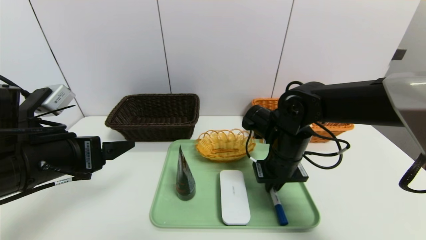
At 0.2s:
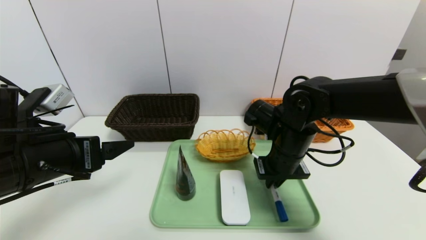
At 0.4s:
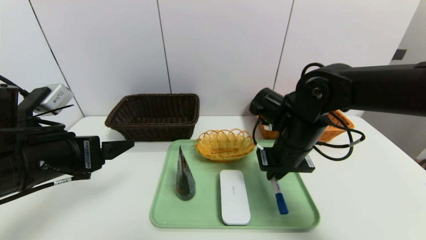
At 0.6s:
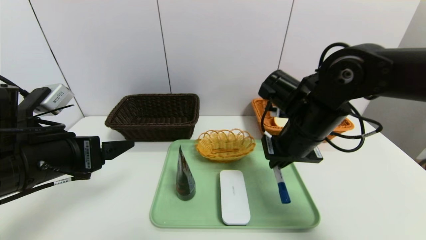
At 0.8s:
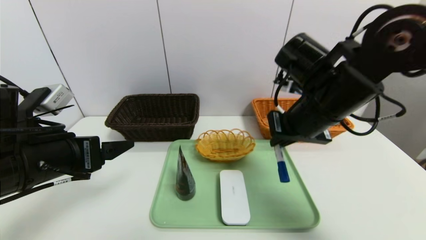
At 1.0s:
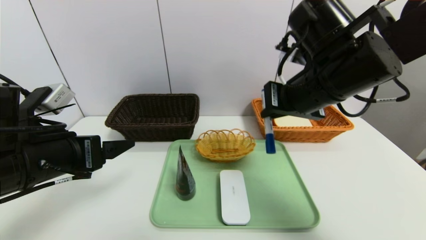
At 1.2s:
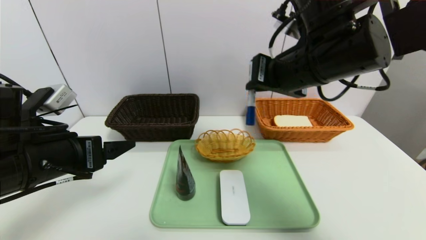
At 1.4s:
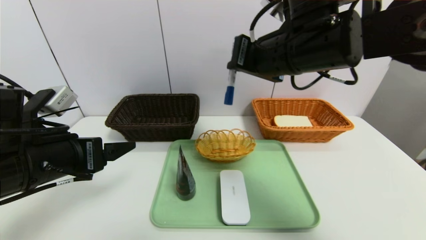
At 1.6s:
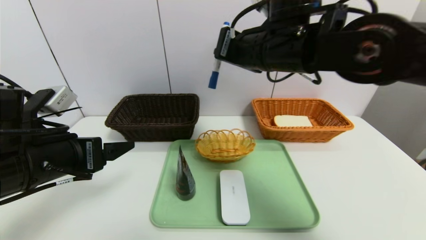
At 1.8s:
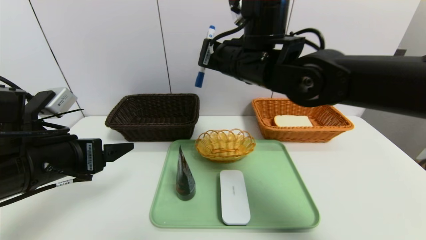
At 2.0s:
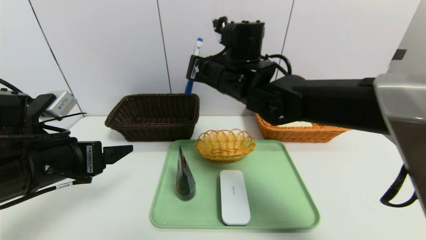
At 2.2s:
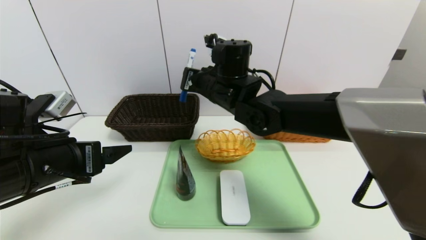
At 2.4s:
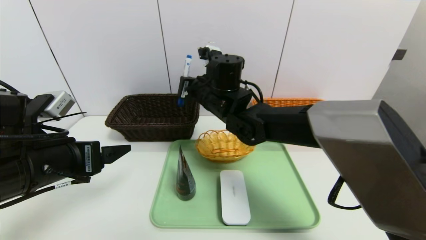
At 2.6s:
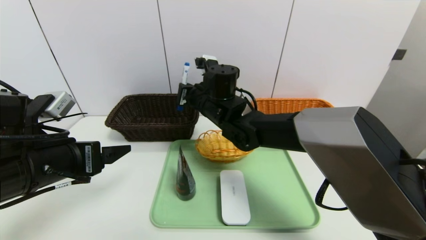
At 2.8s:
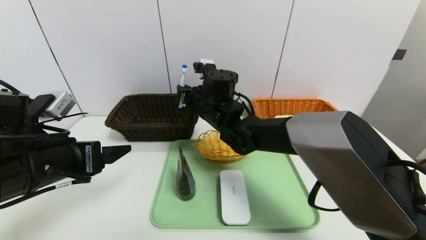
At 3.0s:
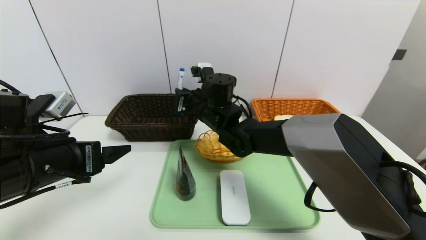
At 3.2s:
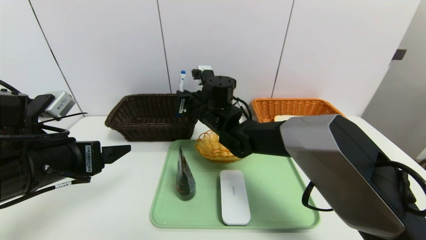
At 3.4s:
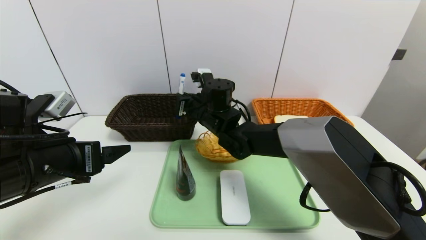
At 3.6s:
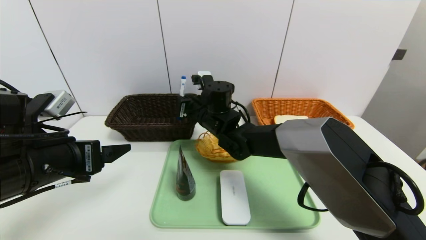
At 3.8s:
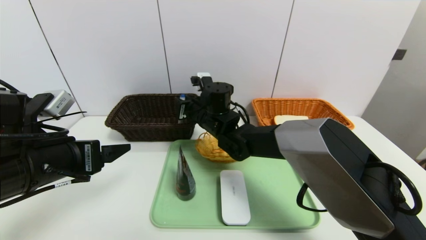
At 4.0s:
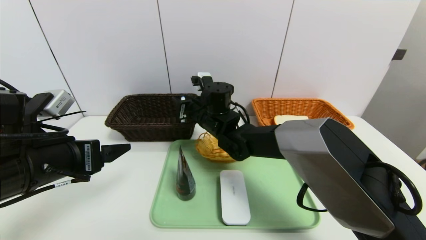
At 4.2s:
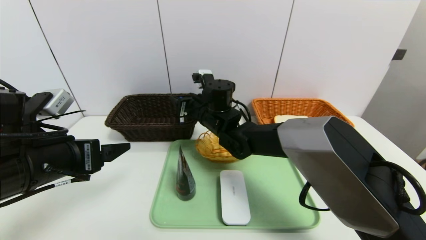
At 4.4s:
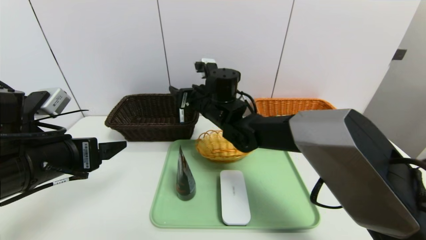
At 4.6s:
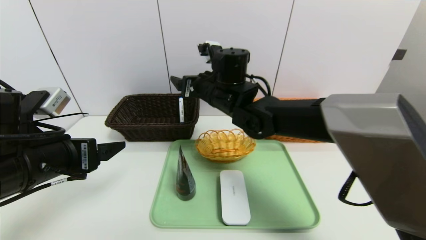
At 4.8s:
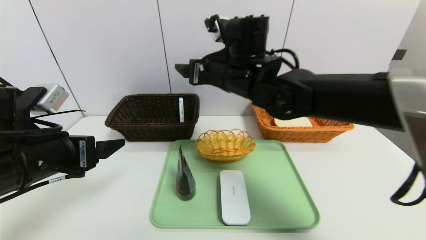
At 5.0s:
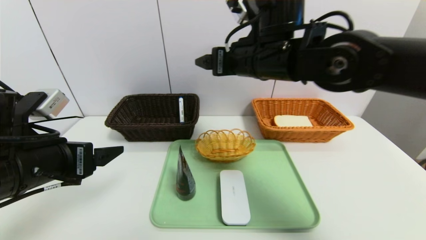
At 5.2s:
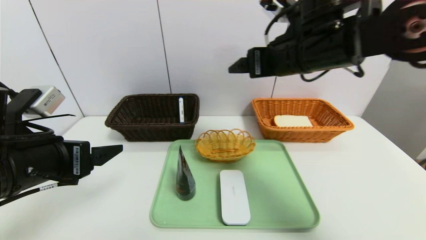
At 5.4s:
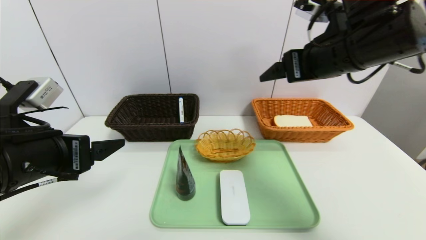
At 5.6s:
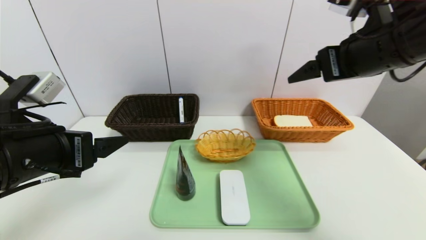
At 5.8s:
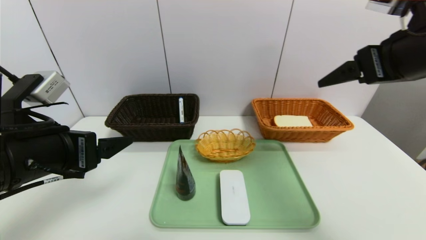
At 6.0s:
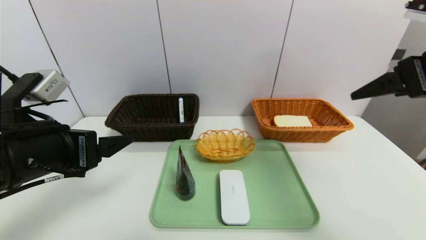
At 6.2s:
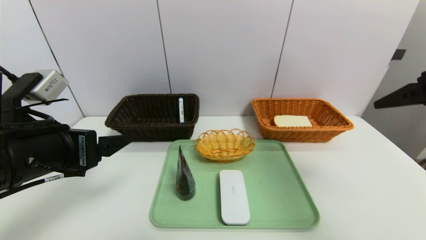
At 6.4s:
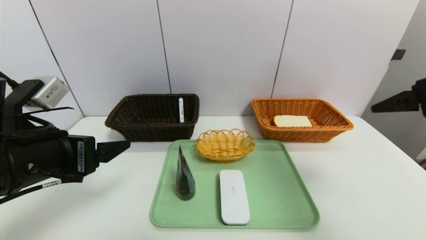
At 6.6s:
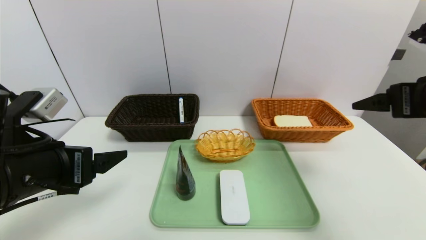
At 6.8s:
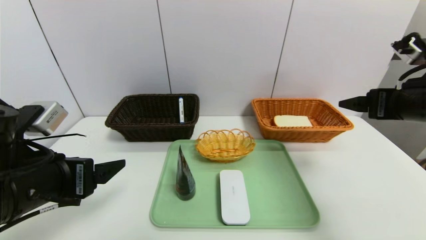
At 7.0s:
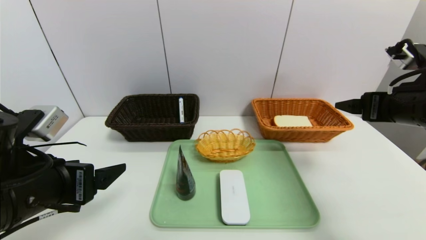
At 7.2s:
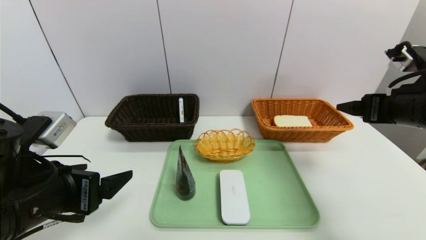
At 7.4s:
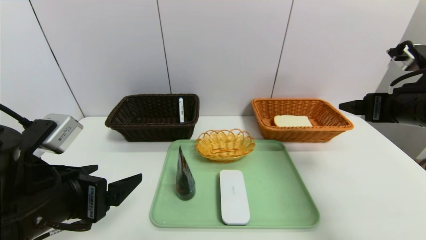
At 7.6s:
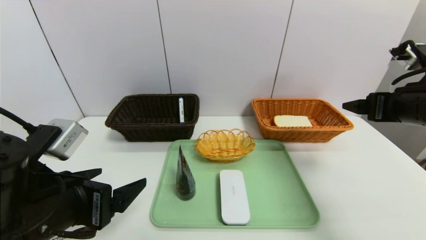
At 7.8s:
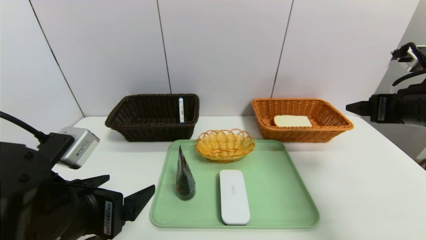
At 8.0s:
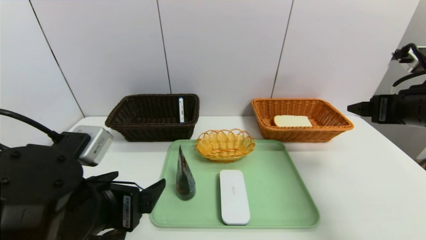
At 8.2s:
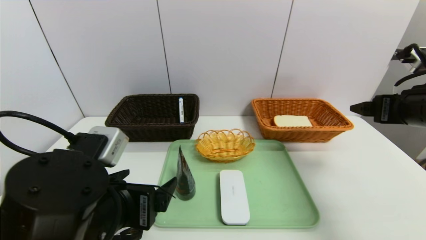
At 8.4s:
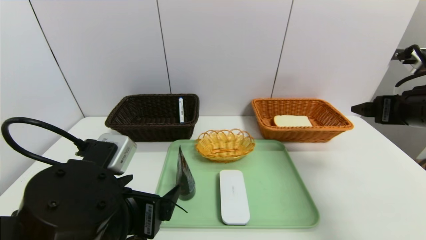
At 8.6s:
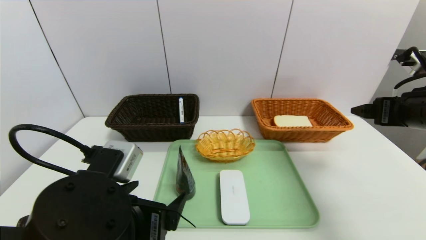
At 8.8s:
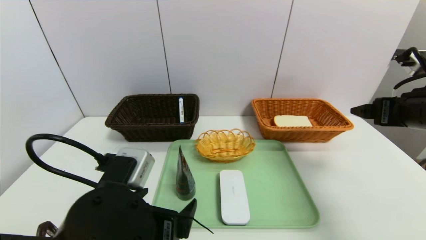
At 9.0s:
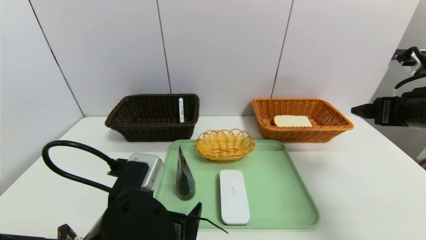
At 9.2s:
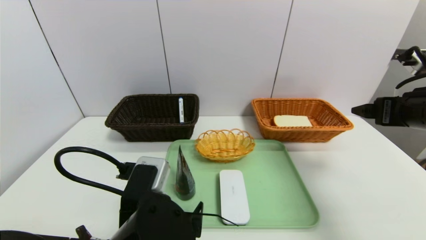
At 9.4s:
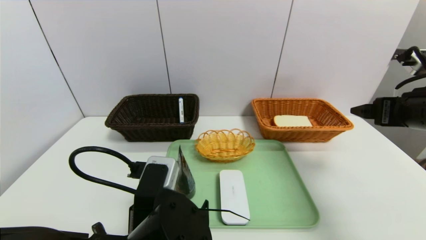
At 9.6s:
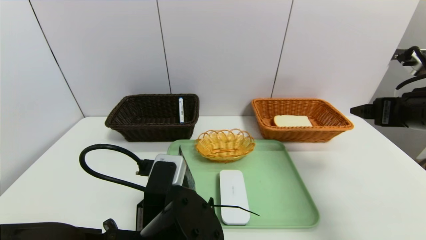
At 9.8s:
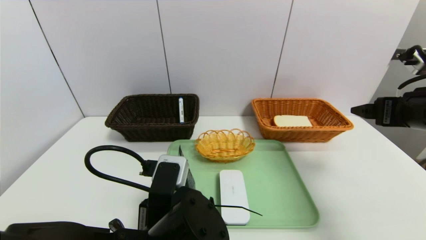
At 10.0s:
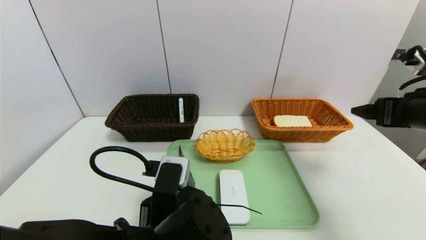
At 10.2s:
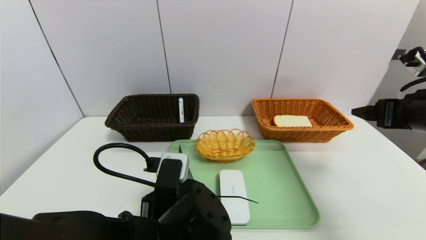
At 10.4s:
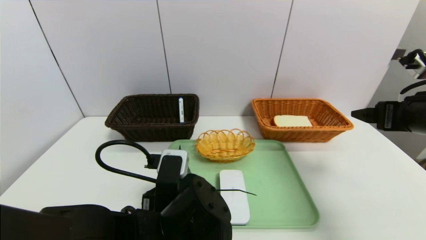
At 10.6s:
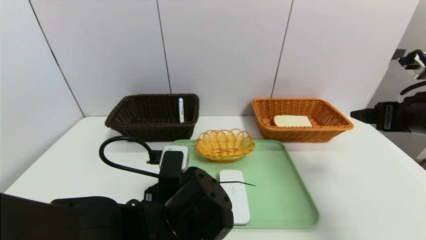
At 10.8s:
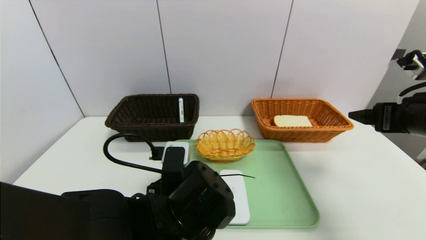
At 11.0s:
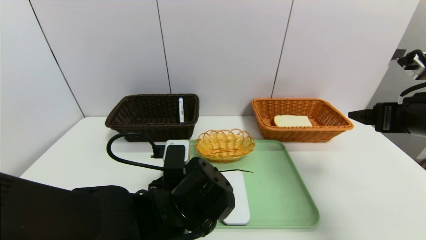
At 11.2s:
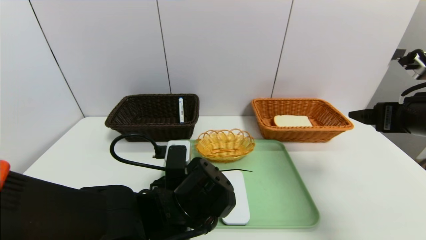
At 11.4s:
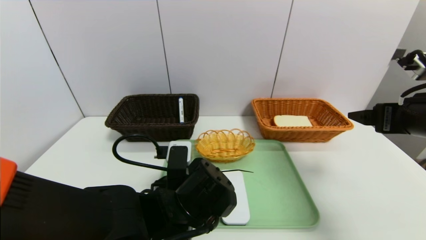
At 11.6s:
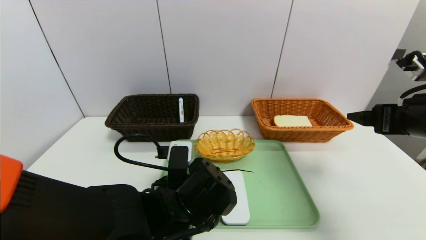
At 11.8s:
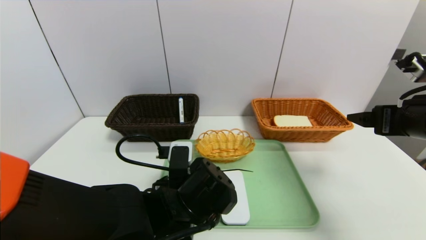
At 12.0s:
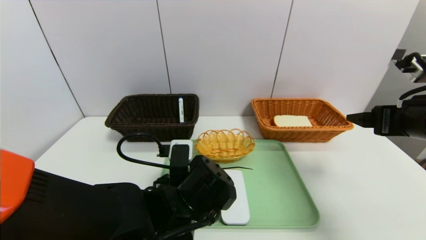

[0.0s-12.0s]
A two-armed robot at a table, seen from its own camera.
Task of the whole recording: place the food in the right basket with the right gripper, and place the non food items in the left basket with the left gripper.
0.0s to 1.6s: The right gripper heads upward, covering approximately 20 cm.
1.6s to 3.0s: The right gripper shifts approximately 20 cm downward, to the left and forward.
3.0s to 4.4s: The right gripper opens its fingers.
4.4s to 6.0s: The right gripper heads to the right, backward and upward, covering about 40 cm.
6.0s to 7.6s: The left gripper changes place by roughly 5 cm; the right gripper shifts approximately 10 cm downward.
7.6s to 9.0s: The left gripper moves to the right, roughly 10 cm.
9.0s to 10.4s: The left gripper changes place by some 5 cm.
10.4s to 12.0s: There are only small adjustments of the grippers.

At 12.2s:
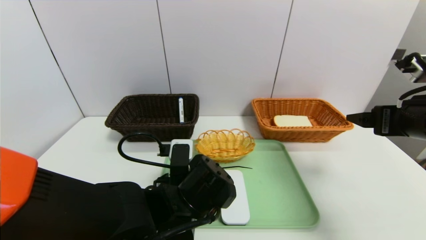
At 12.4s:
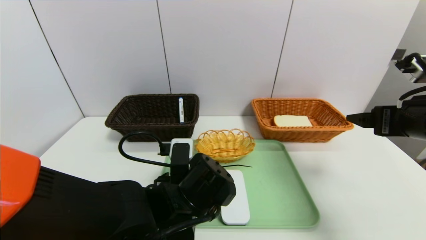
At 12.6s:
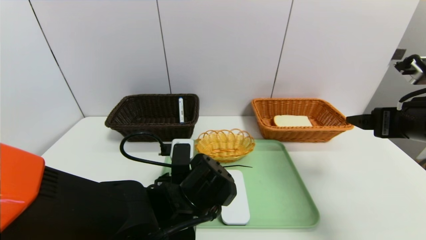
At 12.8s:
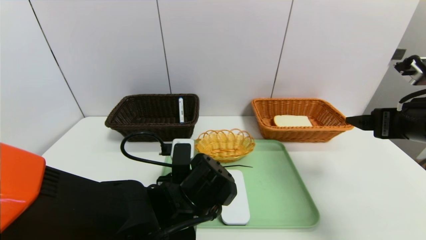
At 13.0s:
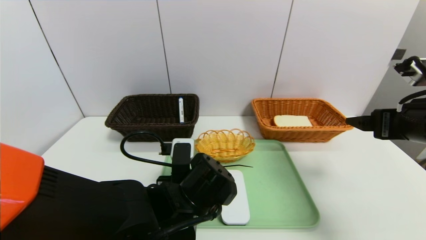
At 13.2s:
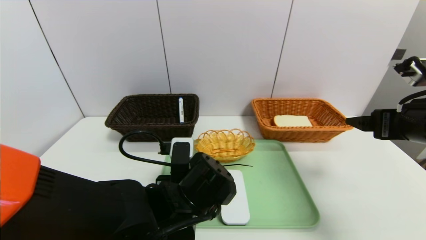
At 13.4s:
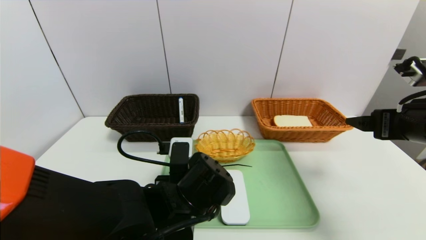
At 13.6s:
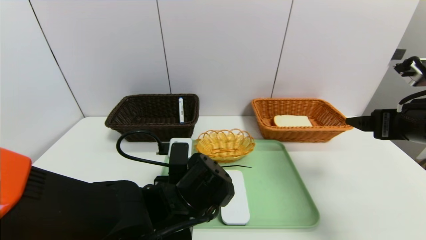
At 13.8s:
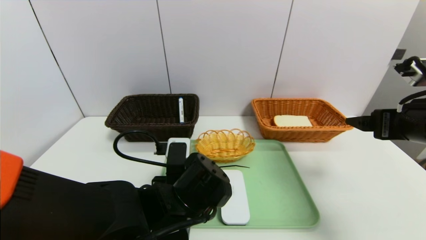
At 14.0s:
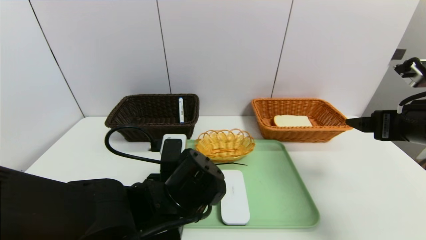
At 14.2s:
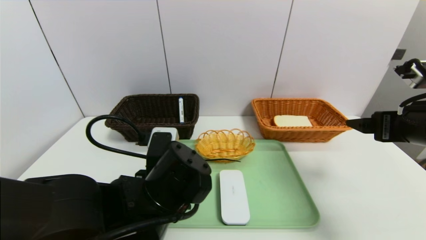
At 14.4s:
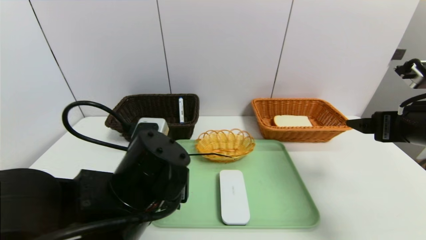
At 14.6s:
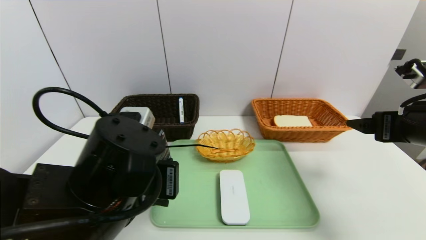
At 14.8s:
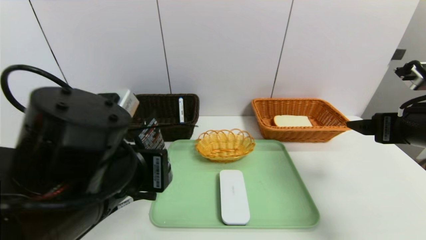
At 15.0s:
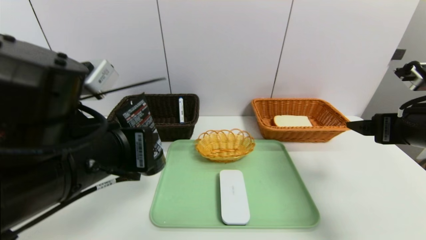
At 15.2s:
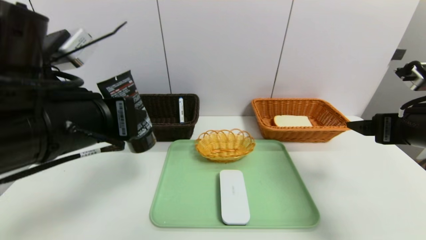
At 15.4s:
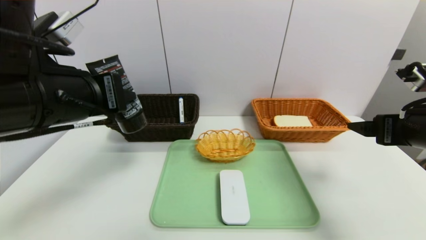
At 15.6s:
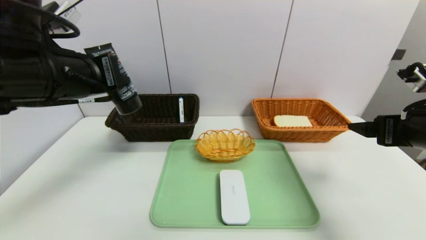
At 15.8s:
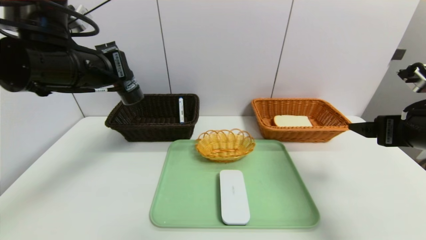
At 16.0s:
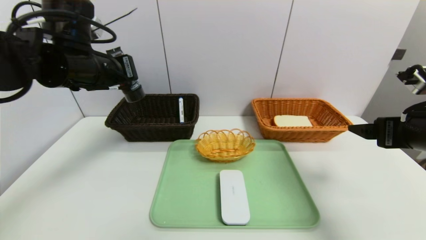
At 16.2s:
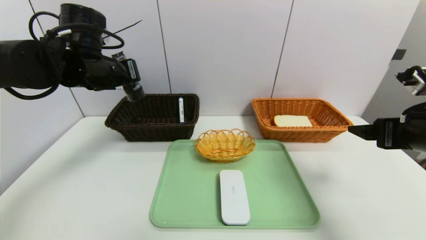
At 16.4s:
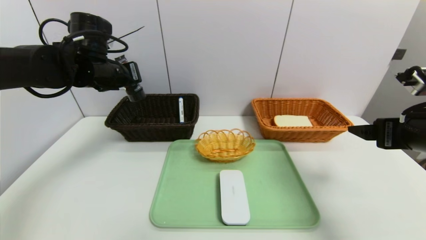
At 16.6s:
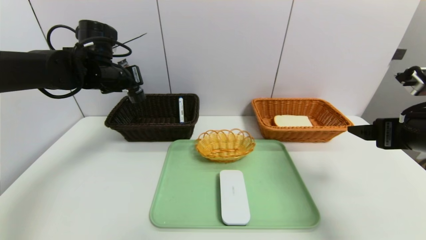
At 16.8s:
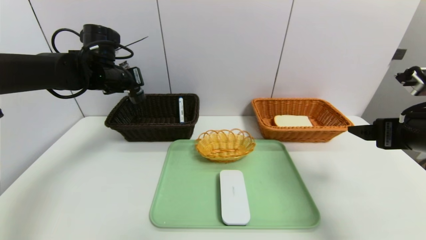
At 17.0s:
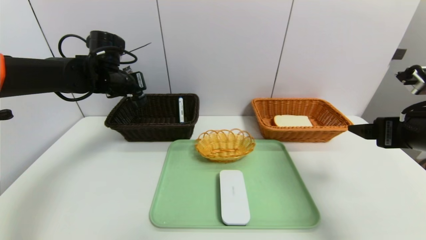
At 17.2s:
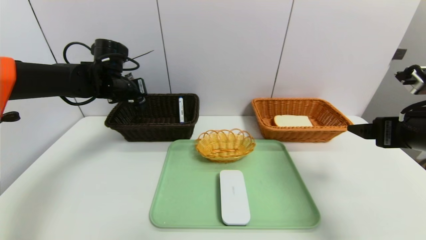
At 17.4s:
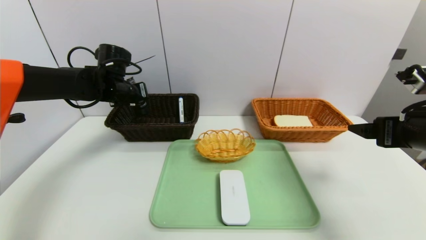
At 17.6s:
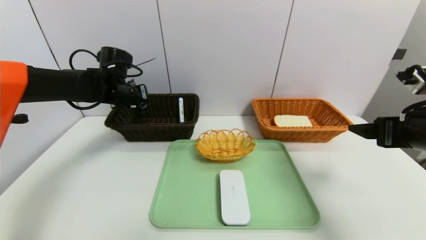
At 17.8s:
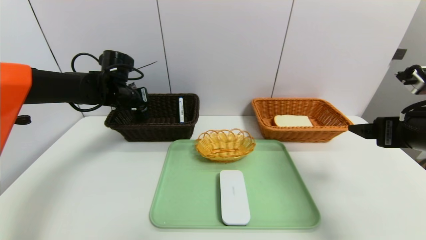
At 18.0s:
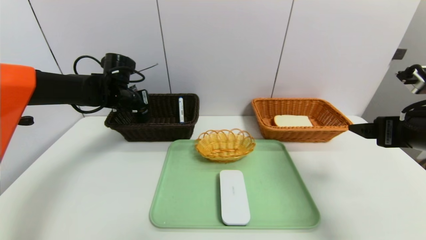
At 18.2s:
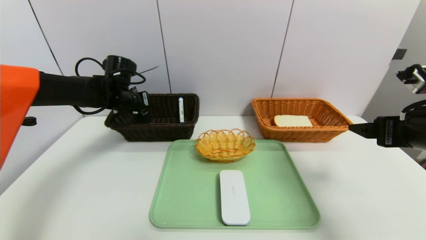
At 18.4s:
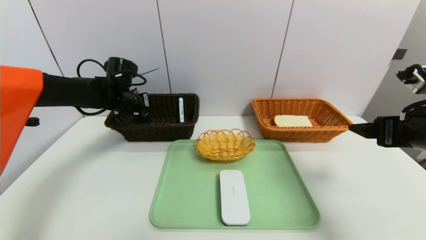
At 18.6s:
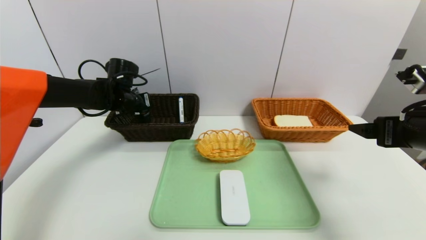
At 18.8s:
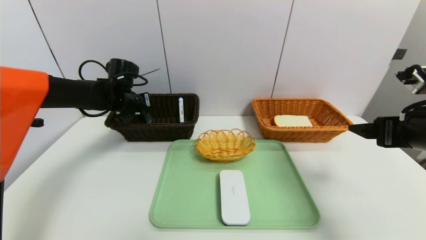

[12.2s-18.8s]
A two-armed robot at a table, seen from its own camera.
Task of the whole recording: place the food in the right basket with the right gripper, and place the non food items in the left basket with the left gripper.
12.2s to 13.8s: The left gripper closes its fingers.
13.8s to 15.4s: The left gripper shifts approximately 25 cm upward and to the left.
15.4s to 17.2s: The left gripper travels forward by roughly 25 cm.
17.2s to 18.8s: The left gripper opens its fingers.
